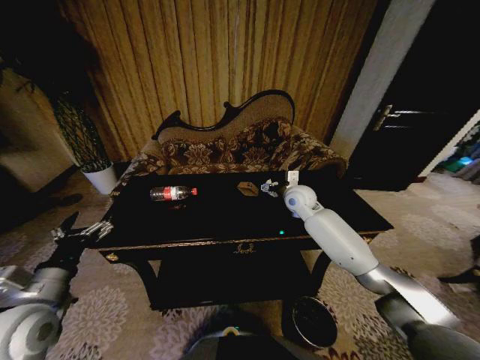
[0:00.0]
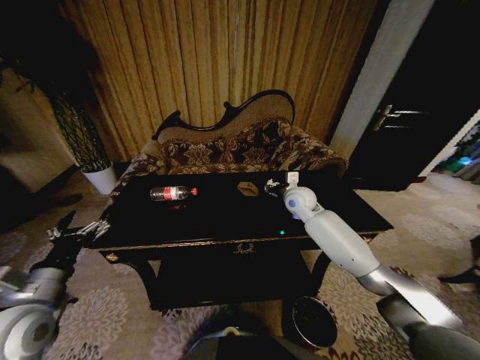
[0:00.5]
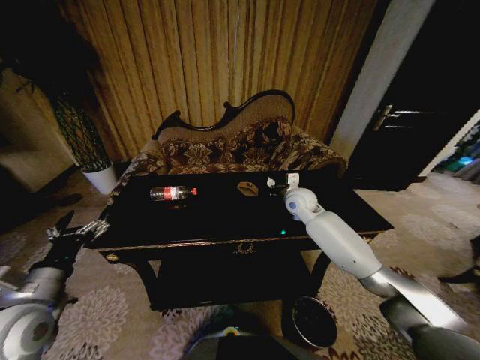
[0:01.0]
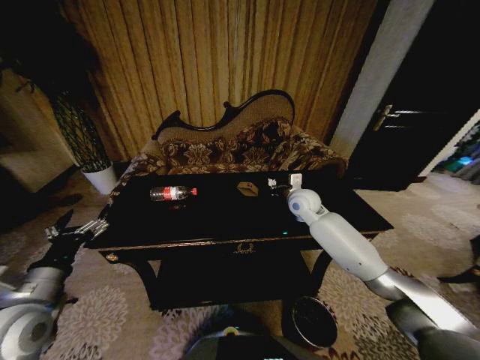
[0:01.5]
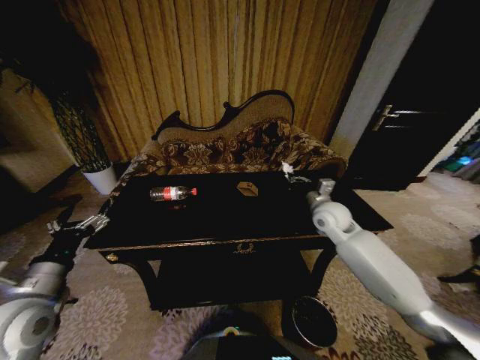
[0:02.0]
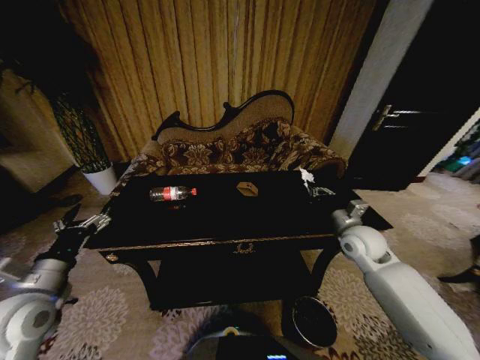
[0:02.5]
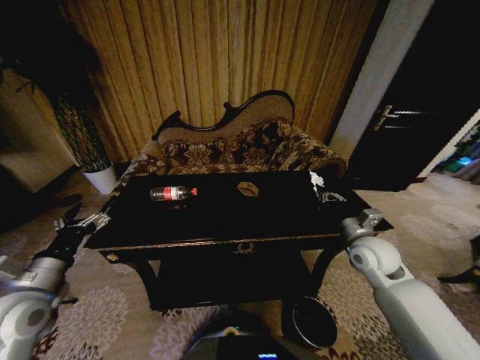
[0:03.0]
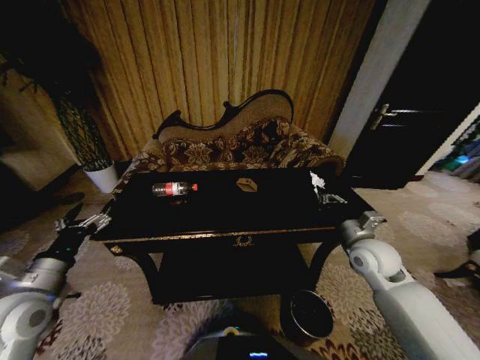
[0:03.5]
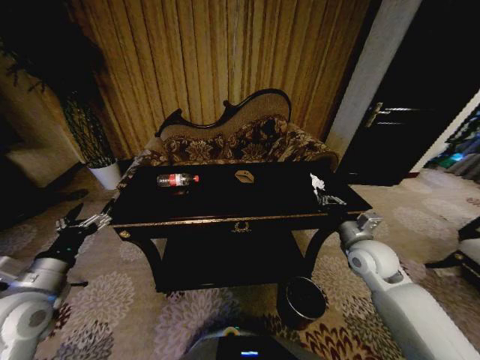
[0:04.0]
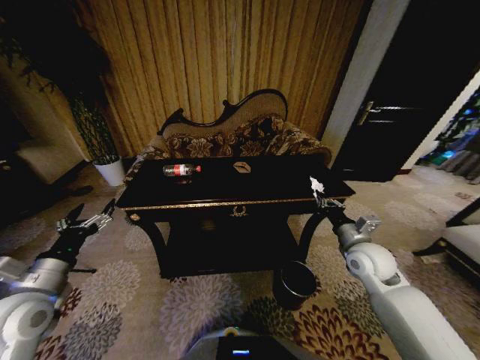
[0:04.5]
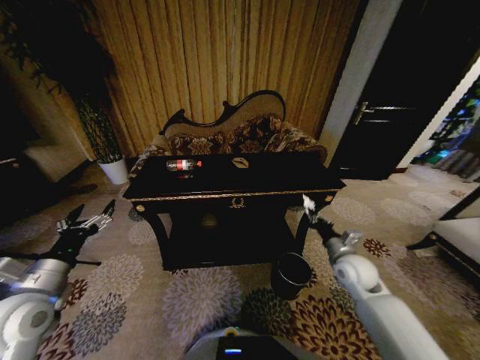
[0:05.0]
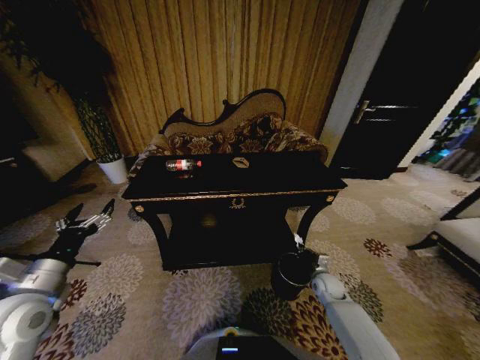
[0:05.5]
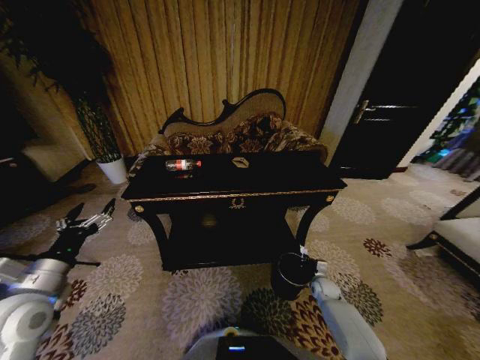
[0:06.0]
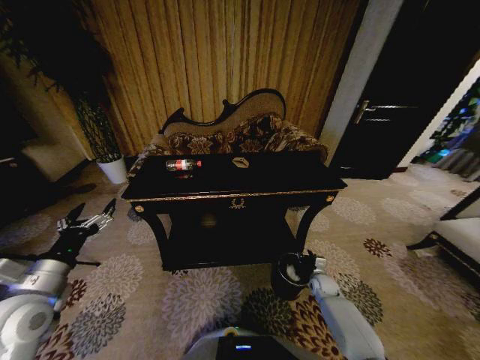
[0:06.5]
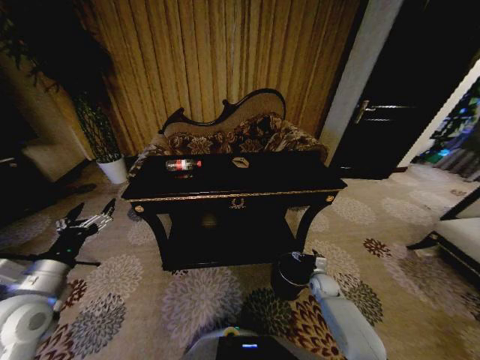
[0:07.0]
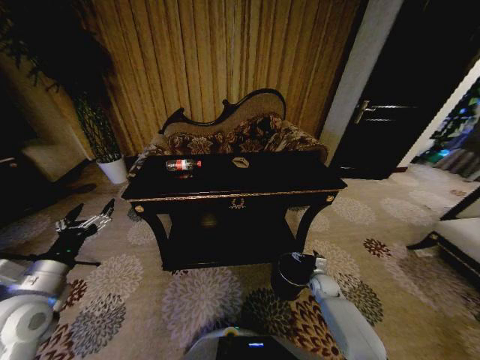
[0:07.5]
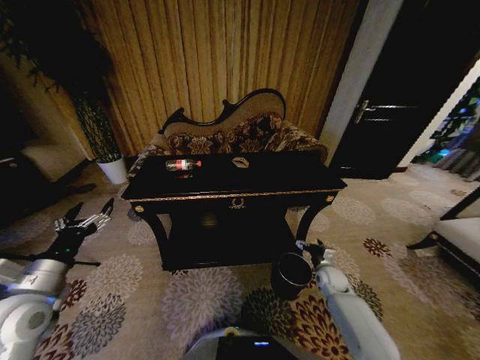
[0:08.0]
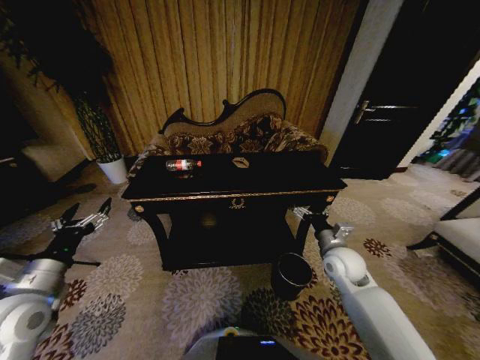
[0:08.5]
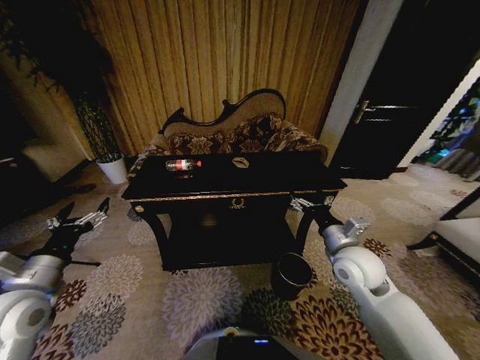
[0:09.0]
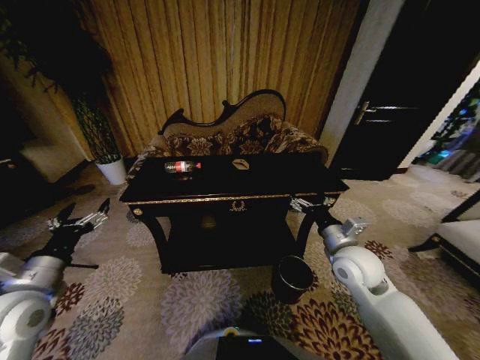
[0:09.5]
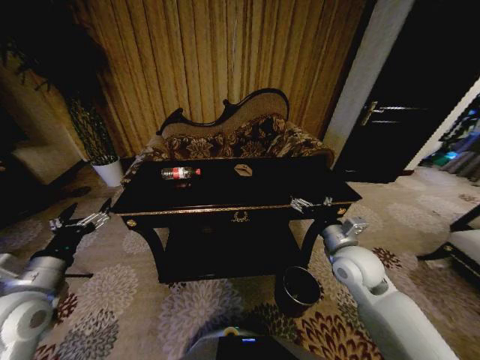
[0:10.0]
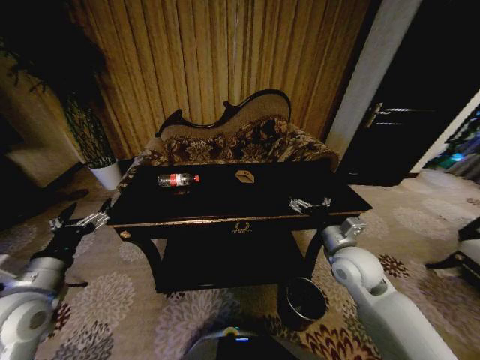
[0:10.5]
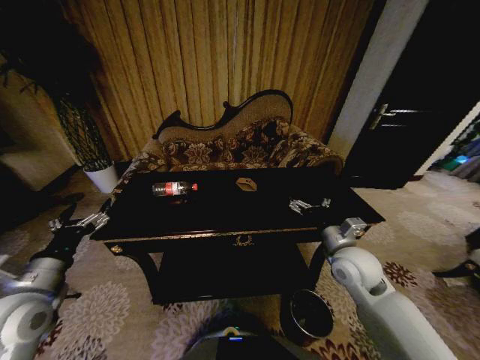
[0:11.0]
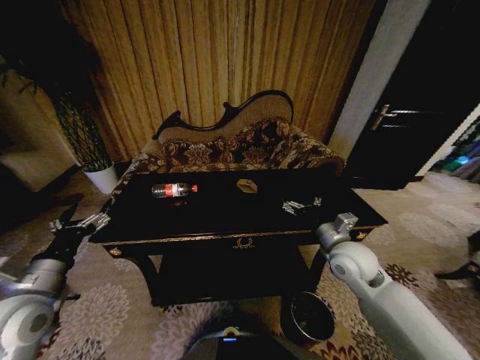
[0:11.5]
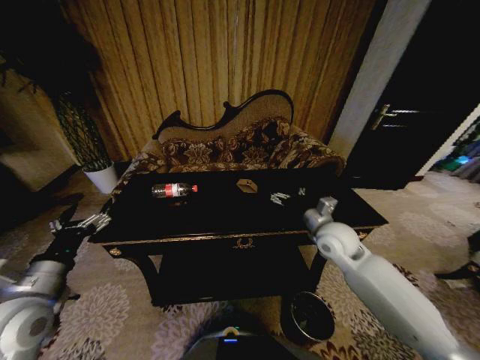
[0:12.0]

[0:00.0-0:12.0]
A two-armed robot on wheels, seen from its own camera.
Task of the whole recording: Move to the front of the table and place the trash on the table into the trash bin.
0.0 to 2.0 s: The right gripper shifts approximately 10 cm backward and to the right, and closes.
2.0 to 4.0 s: The right gripper moves backward and to the right, about 15 cm.
4.0 to 6.0 s: The right gripper heads downward, covering approximately 30 cm.
6.0 to 8.0 s: The right gripper heads upward, covering some 10 cm, and opens.
8.0 to 10.0 s: The right gripper is displaced upward by some 25 cm.
10.0 to 12.0 s: The right gripper moves forward, approximately 5 cm.

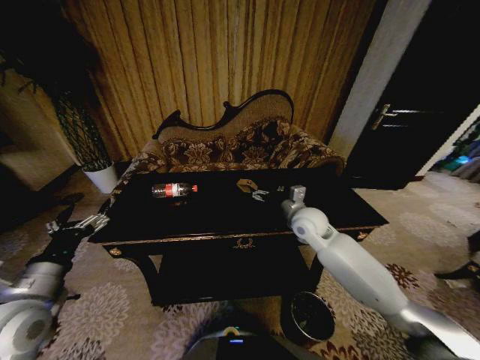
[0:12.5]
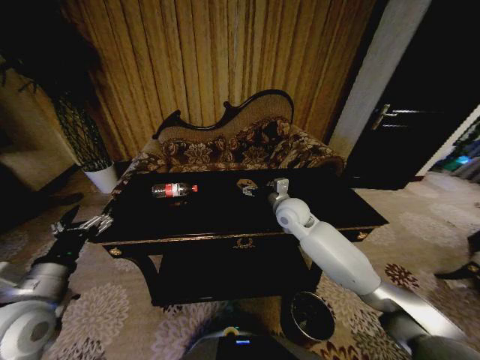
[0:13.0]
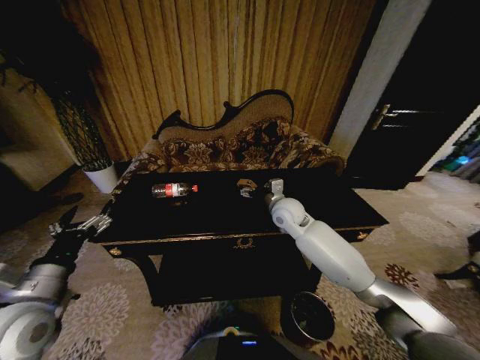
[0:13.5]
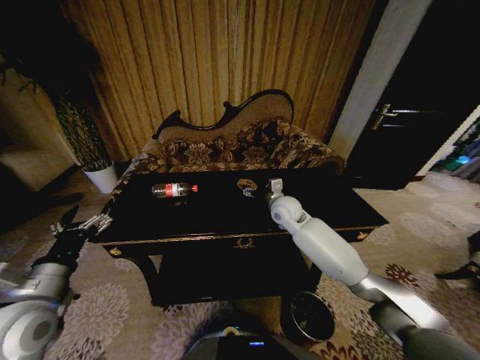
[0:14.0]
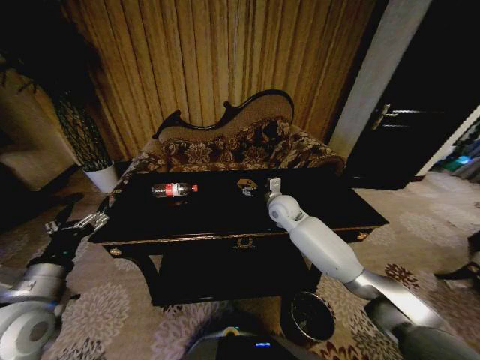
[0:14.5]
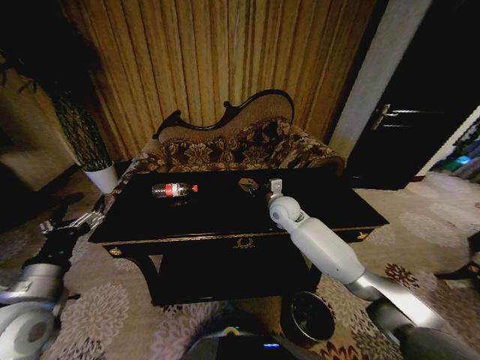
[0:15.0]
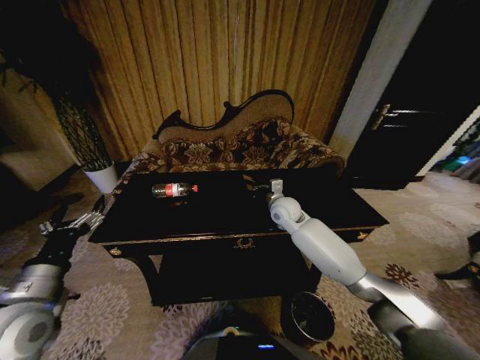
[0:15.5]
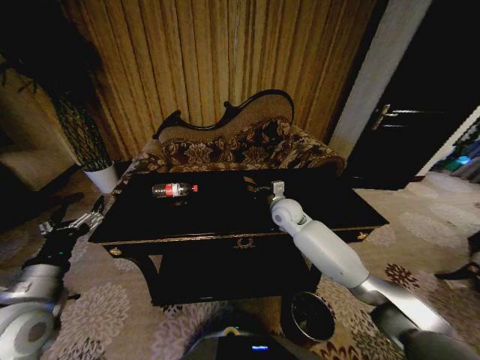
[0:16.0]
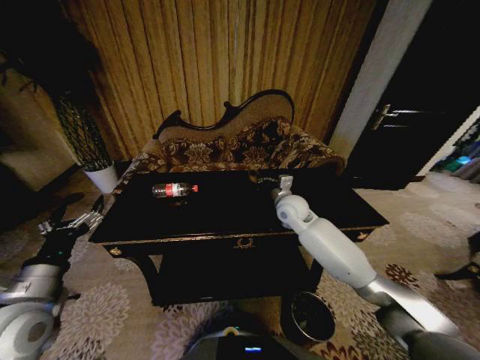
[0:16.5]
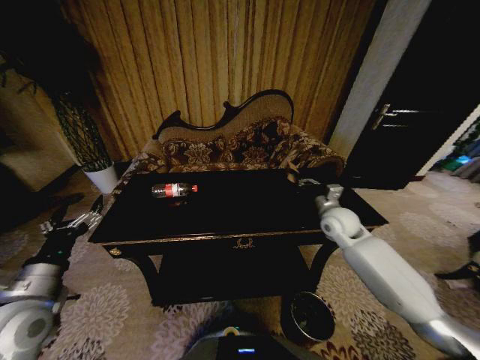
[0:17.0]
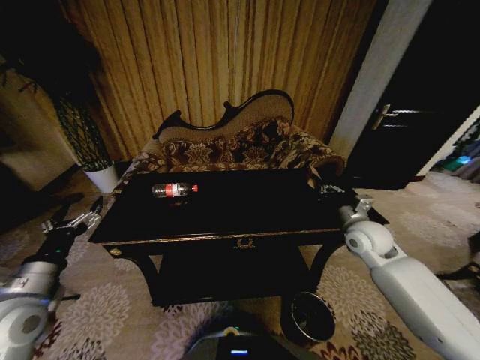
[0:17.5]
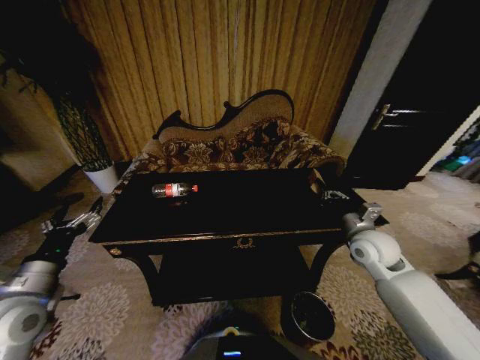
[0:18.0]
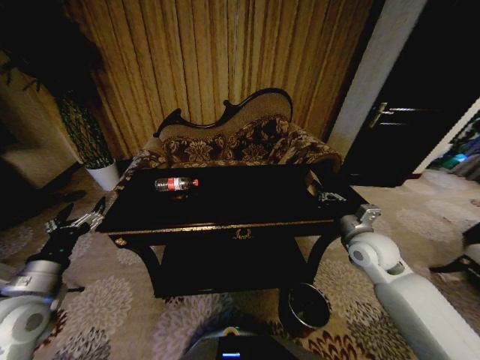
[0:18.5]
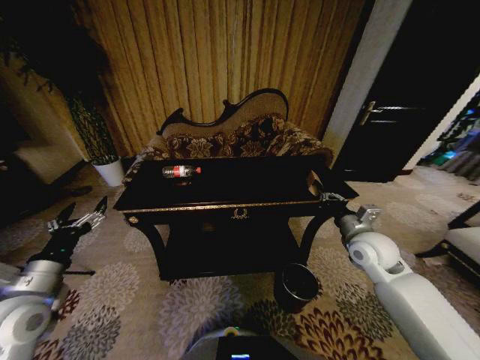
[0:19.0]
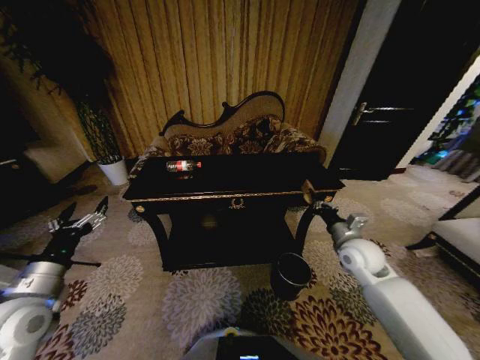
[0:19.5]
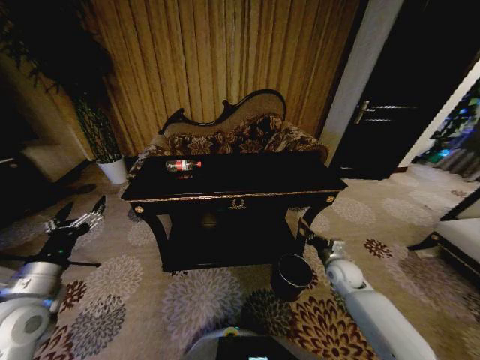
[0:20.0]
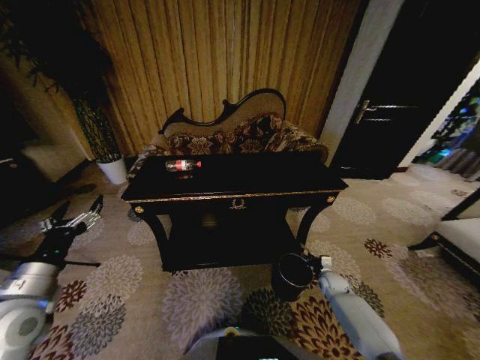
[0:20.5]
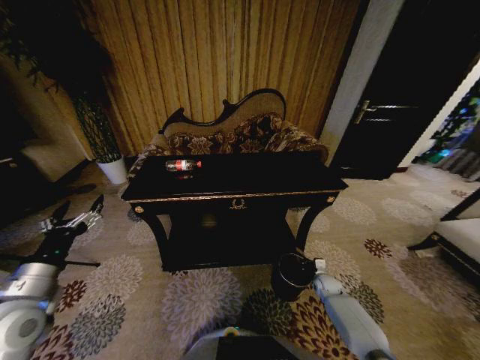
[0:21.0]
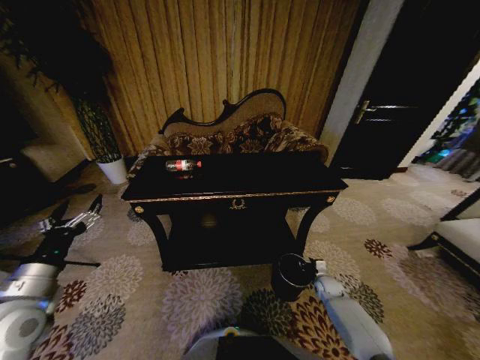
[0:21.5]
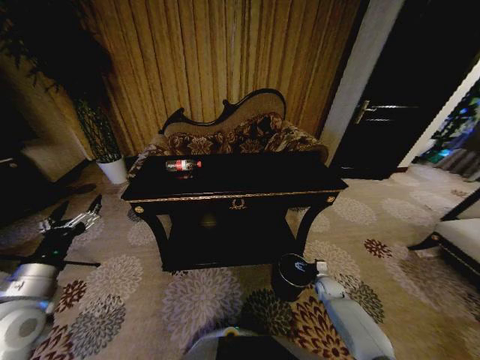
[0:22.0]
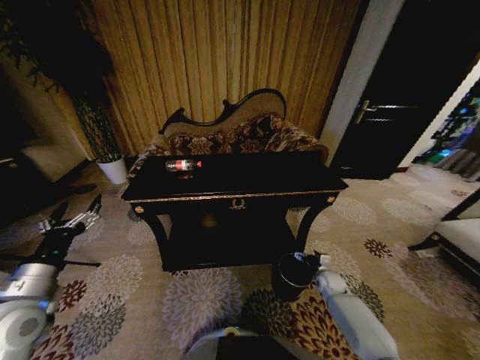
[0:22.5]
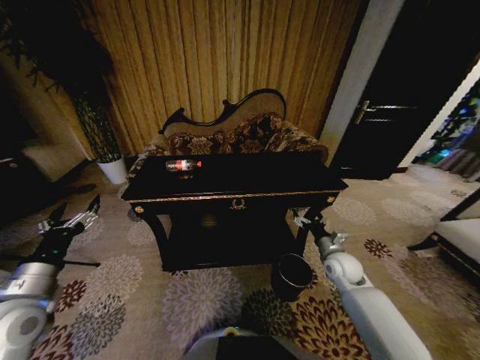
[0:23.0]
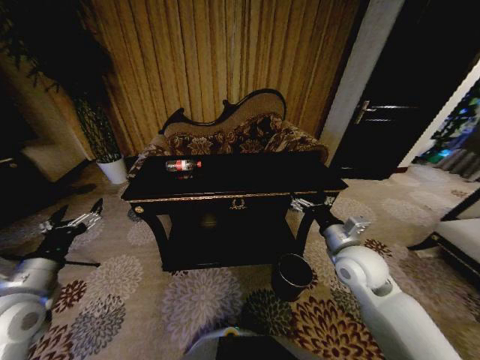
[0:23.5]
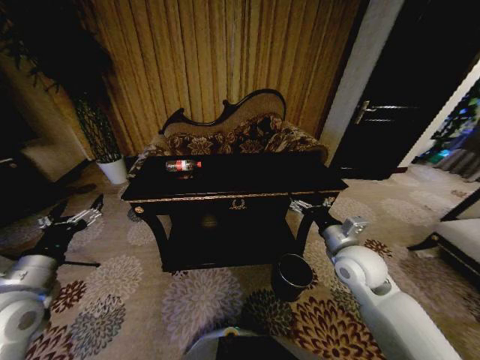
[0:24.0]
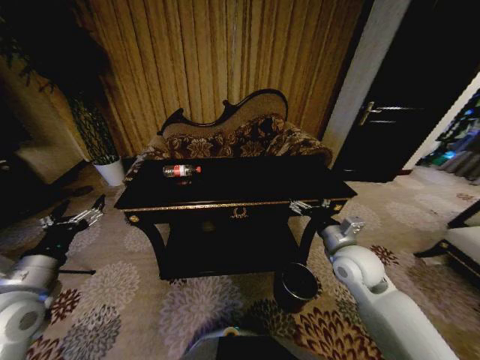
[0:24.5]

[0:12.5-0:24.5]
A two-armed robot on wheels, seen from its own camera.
Task of the whole recording: Move to the front of the table and place the trash on the table into the trash bin.
12.5 to 14.5 s: The right gripper moves forward and to the left, approximately 10 cm.
14.5 to 16.5 s: The right gripper closes.
16.5 to 18.5 s: The right gripper travels to the right and backward by about 20 cm.
18.5 to 20.5 s: The right gripper shifts some 30 cm downward.
20.5 to 22.5 s: The right gripper opens up.
22.5 to 24.5 s: The right gripper heads upward, covering approximately 30 cm.

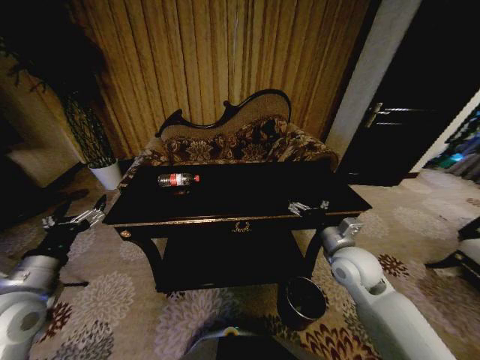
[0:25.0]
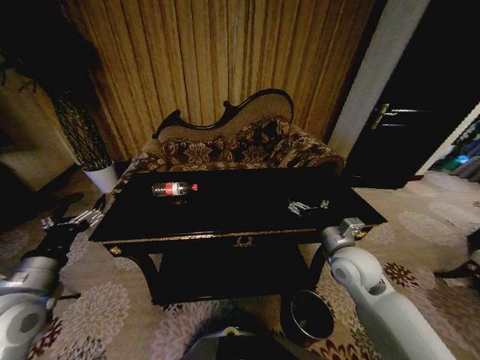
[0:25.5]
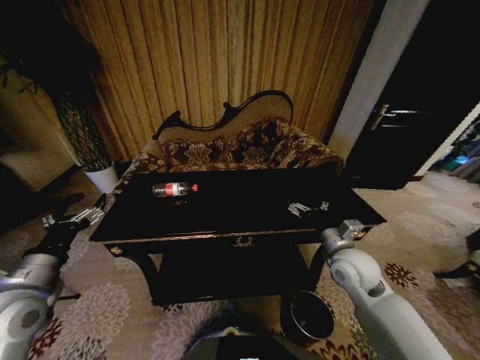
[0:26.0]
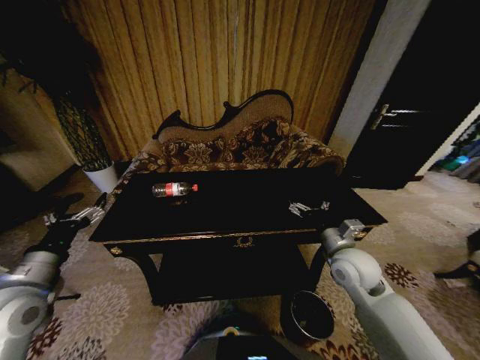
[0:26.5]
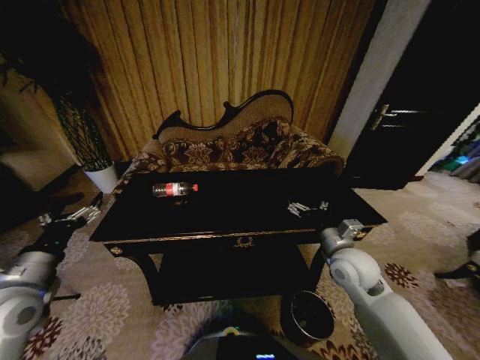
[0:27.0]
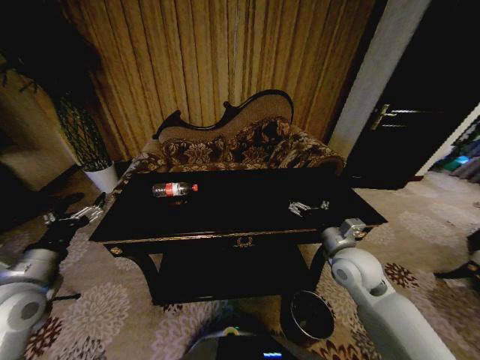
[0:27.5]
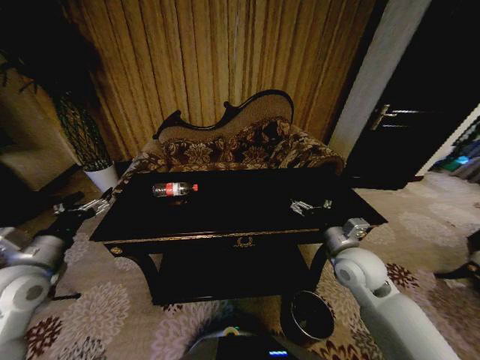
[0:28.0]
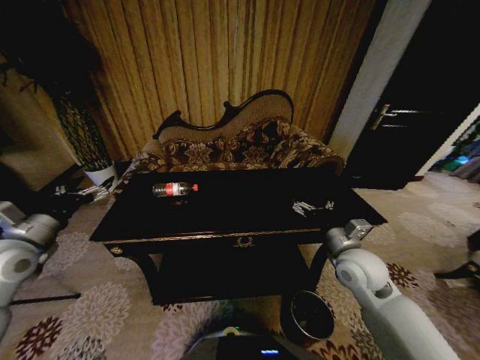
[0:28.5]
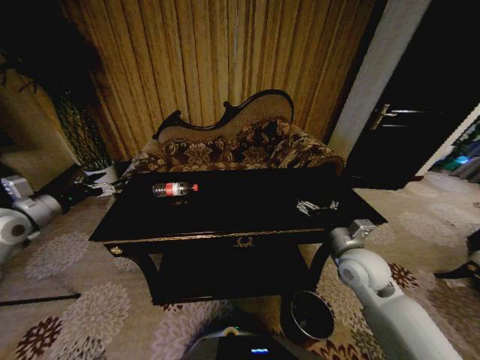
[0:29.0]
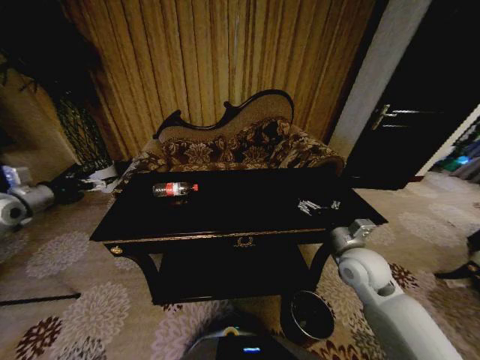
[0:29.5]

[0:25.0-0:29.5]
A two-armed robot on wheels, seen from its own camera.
Task of the whole recording: Move to the front of the table and place the trash on the table into the trash bin.
25.0 to 27.0 s: Both grippers stay put.
27.0 to 29.5 s: The left gripper is displaced forward and to the left by roughly 25 cm.
